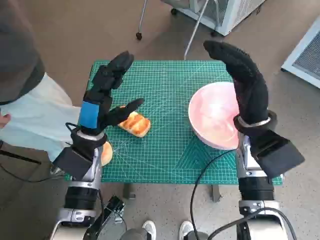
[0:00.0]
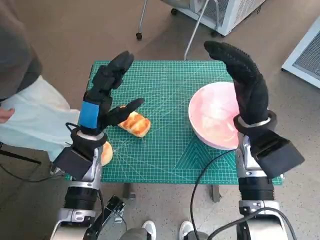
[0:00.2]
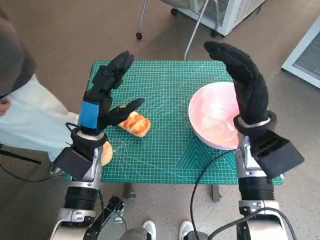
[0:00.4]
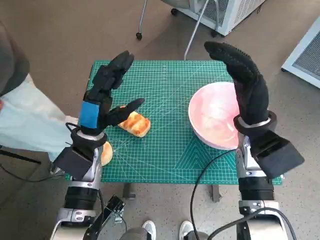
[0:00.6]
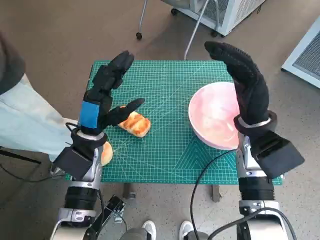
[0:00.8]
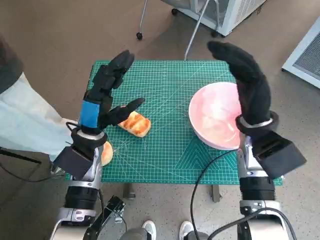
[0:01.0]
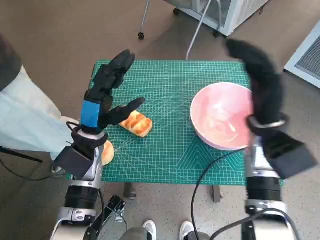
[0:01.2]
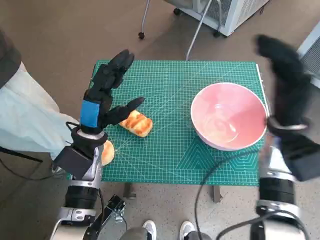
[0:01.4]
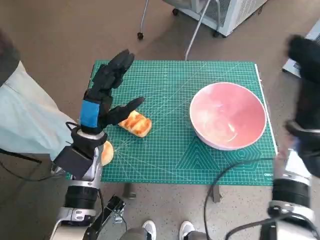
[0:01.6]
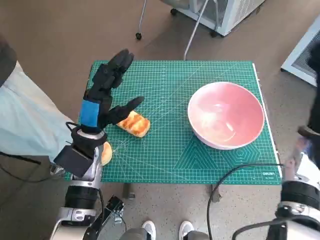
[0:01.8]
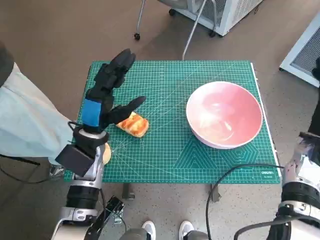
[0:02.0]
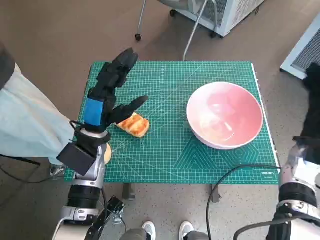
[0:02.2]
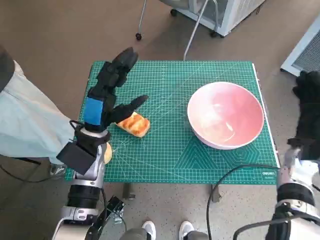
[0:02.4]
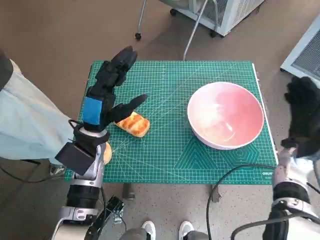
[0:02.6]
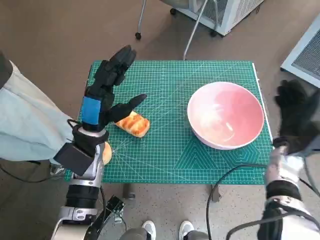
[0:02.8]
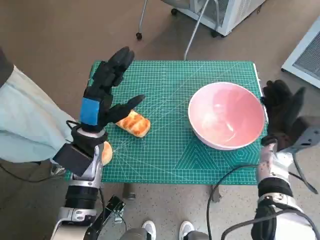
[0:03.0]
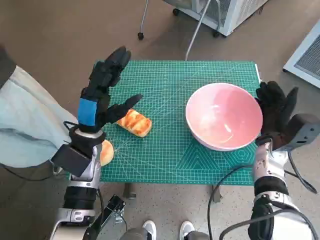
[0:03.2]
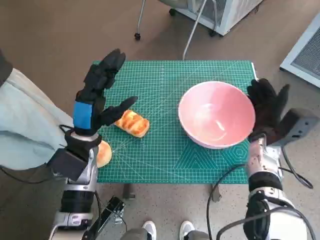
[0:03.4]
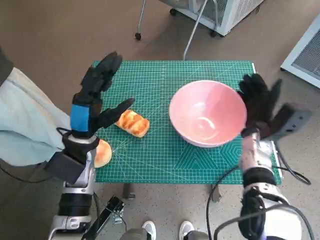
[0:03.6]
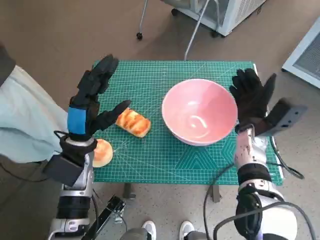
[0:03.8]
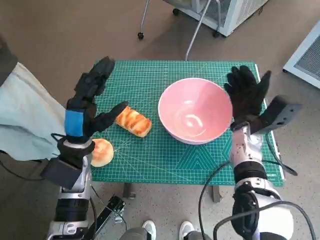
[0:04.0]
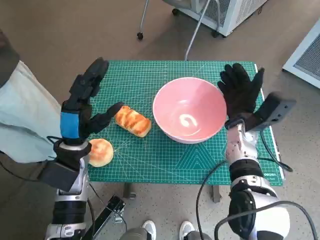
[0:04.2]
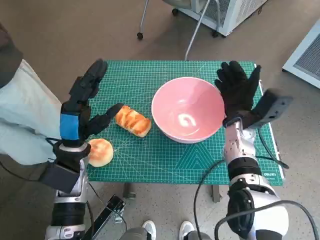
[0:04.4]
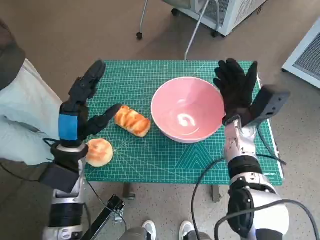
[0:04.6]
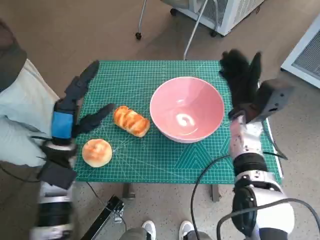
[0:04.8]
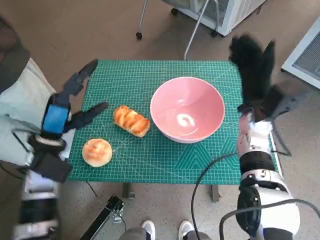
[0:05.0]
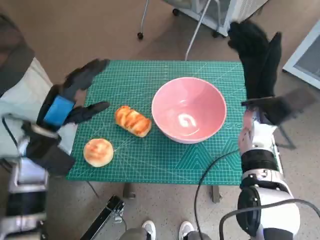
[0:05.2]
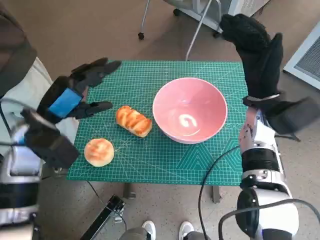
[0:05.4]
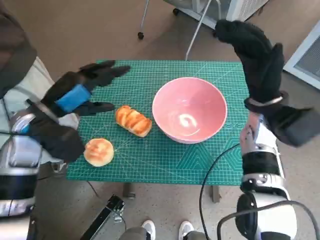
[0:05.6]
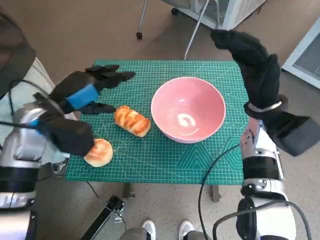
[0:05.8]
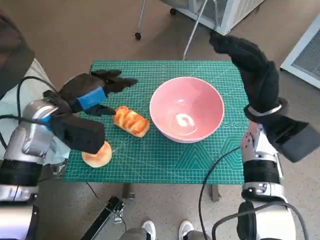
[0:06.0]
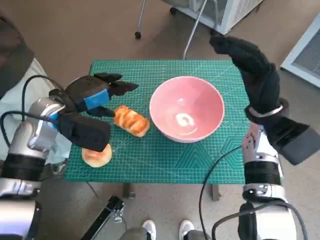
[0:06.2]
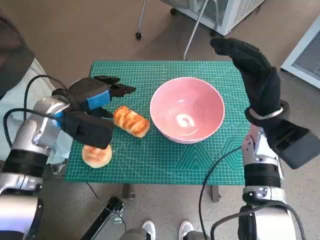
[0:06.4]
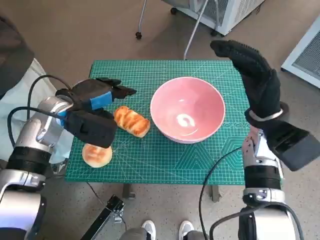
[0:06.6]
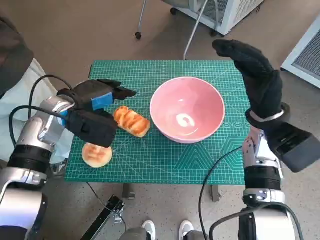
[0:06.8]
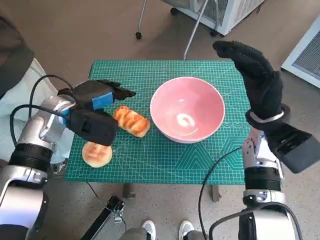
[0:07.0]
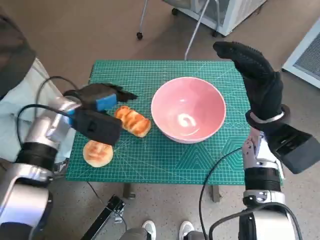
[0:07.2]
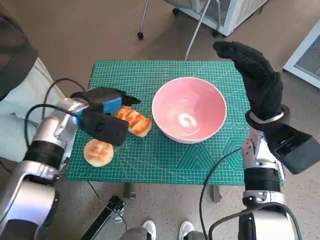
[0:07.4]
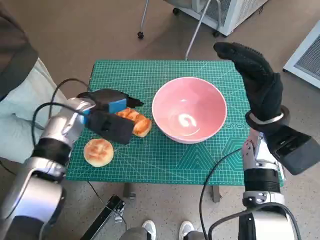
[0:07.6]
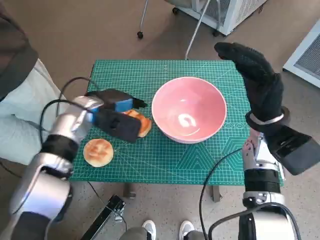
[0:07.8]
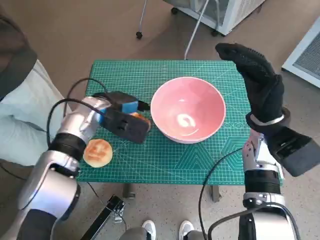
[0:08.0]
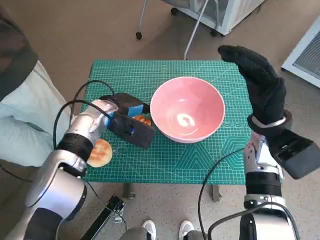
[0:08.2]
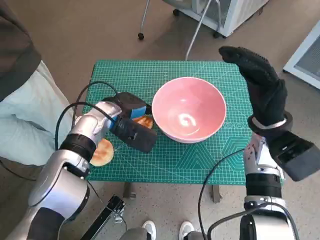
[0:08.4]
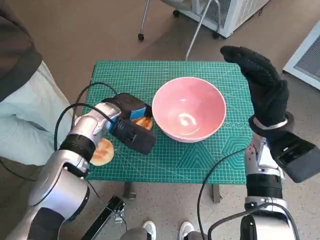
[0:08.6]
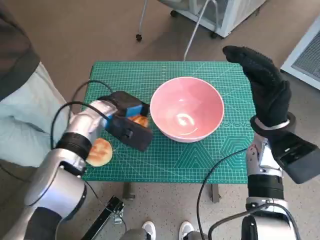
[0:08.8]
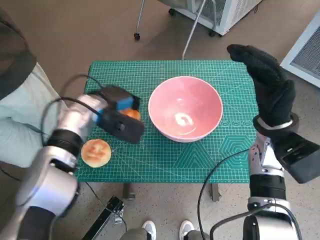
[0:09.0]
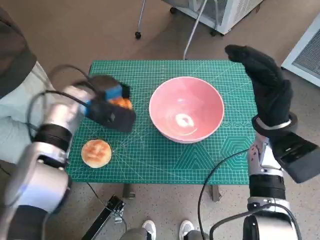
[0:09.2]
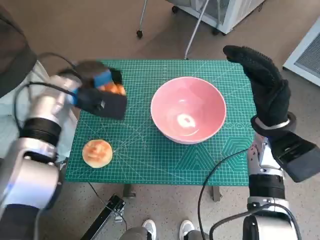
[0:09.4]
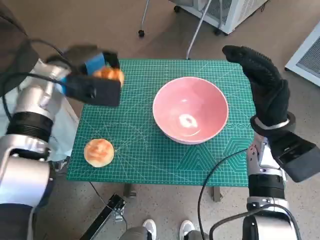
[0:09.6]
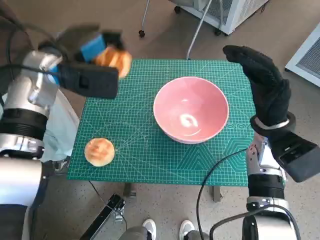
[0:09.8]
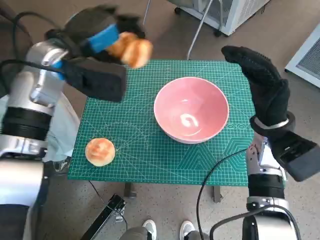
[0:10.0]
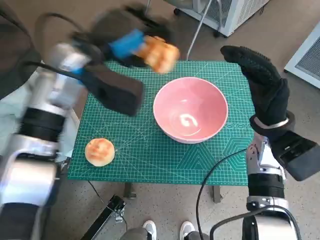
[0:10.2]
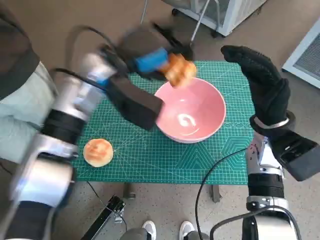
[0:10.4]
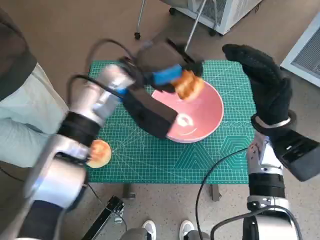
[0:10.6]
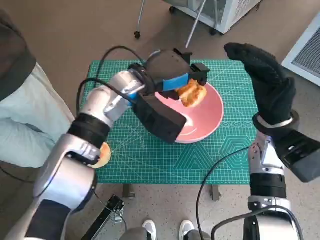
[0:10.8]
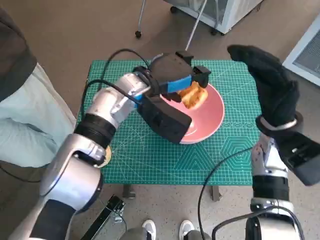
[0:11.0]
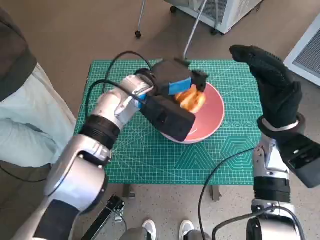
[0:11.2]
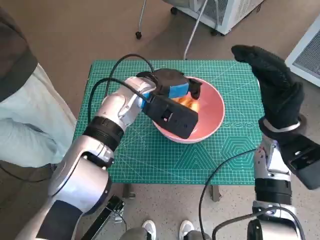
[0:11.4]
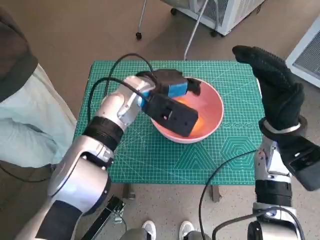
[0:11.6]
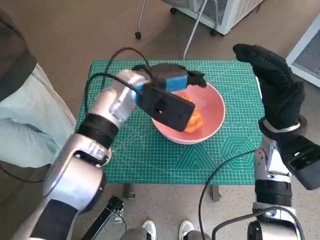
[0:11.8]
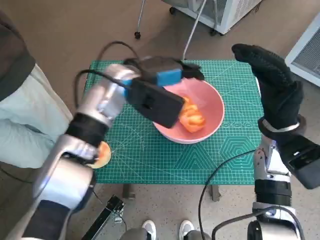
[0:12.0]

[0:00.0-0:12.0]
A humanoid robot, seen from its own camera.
Task of the whole recording: Push the bowl to the center of the table and put the bread into the bowl.
Step, 0:00.0 to 0:04.6: Move the pink bowl to the center of table with right hand.
Step, 0:04.8 to 0:08.4: Grasp the long bread with left hand.
Step, 0:08.6 to 0:11.8: Place the long bread in pink bowl with left hand.
0:01.6 to 0:03.0: The right hand is displaced downward by roughly 10 cm.
0:03.0 to 0:04.4: The right hand heads to the left, covering about 10 cm.
0:04.4 to 0:06.0: The left hand goes about 10 cm upward and forward. Meanwhile the right hand is displaced upward by some 10 cm.
0:06.0 to 0:07.6: The left hand moves roughly 5 cm.
0:09.0 to 0:10.4: The left hand heads upward, covering roughly 10 cm.

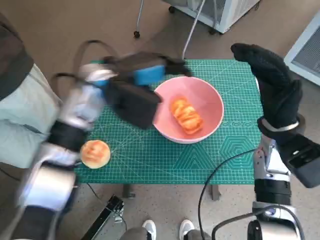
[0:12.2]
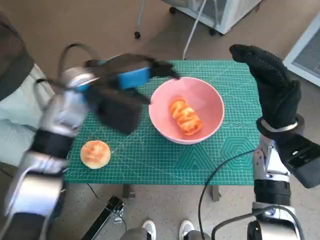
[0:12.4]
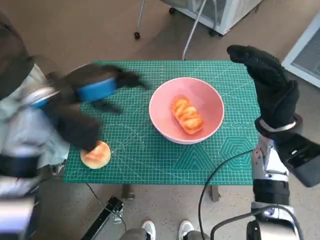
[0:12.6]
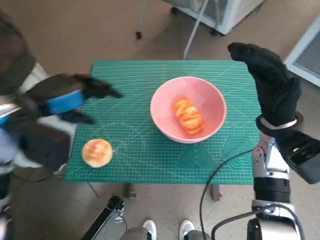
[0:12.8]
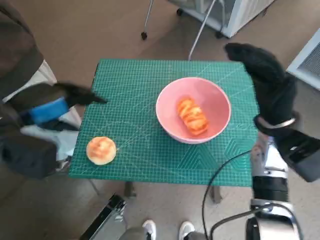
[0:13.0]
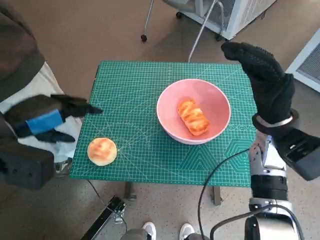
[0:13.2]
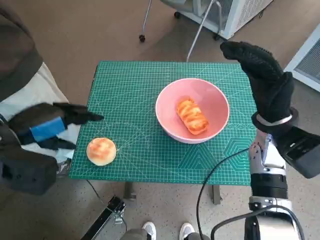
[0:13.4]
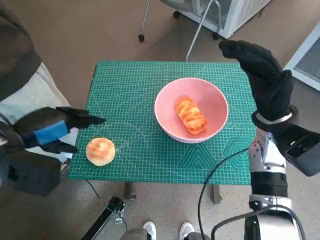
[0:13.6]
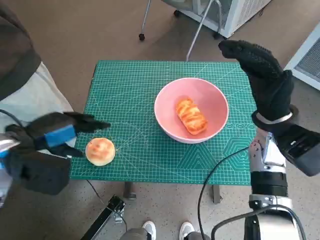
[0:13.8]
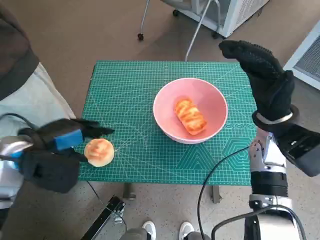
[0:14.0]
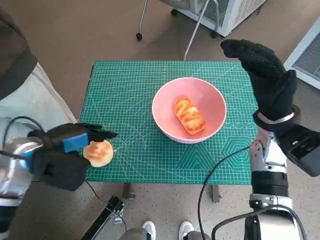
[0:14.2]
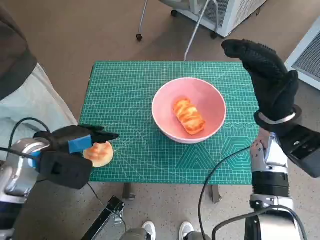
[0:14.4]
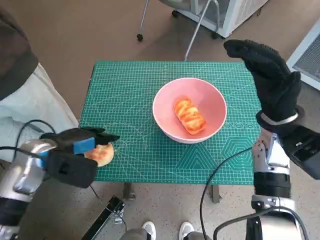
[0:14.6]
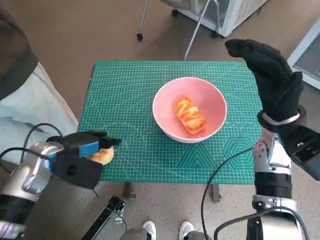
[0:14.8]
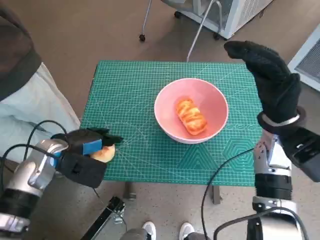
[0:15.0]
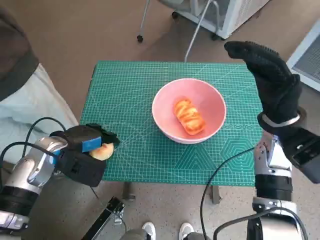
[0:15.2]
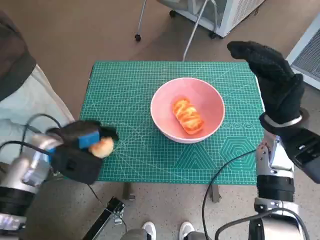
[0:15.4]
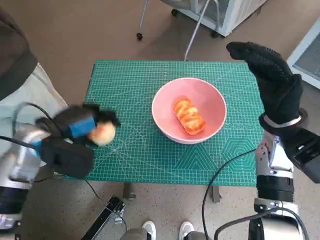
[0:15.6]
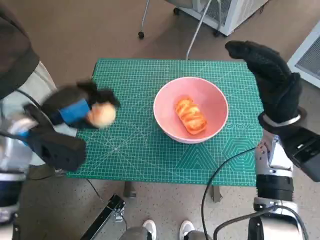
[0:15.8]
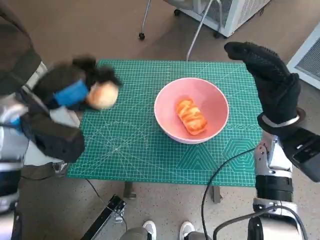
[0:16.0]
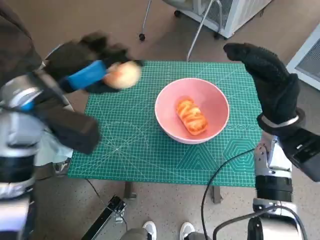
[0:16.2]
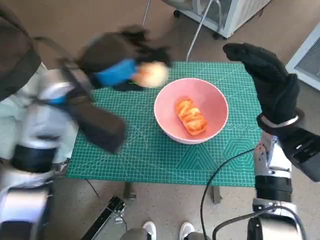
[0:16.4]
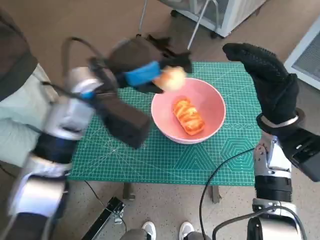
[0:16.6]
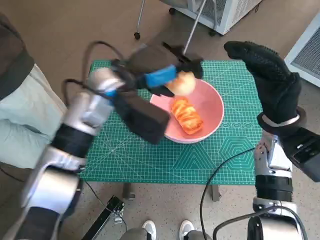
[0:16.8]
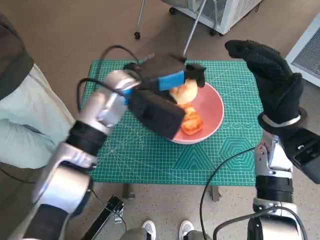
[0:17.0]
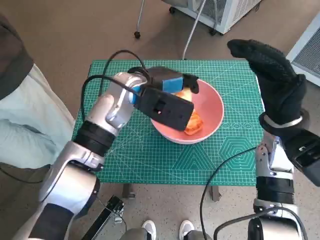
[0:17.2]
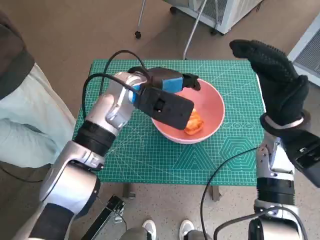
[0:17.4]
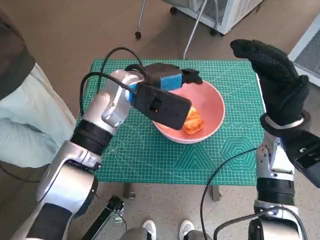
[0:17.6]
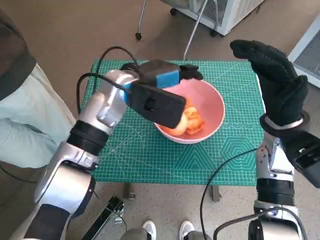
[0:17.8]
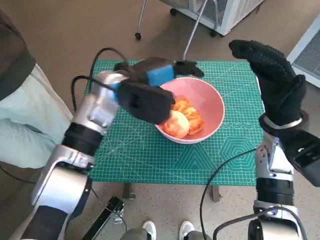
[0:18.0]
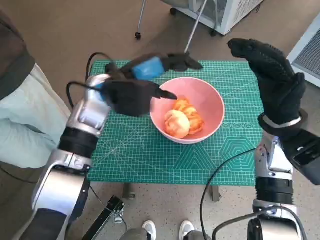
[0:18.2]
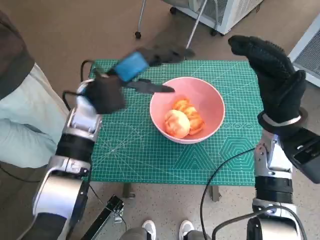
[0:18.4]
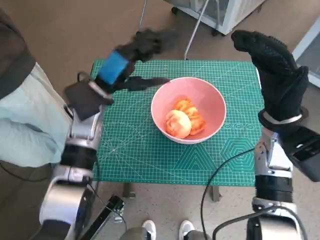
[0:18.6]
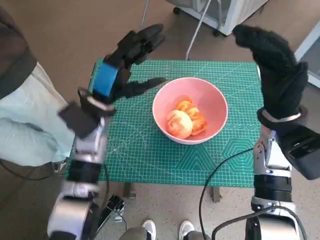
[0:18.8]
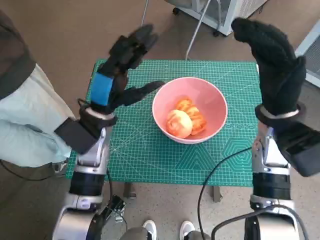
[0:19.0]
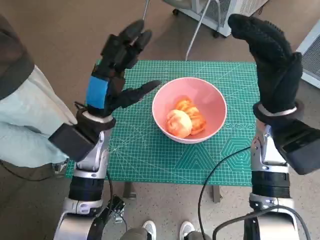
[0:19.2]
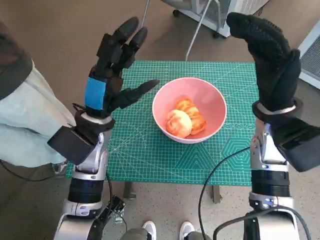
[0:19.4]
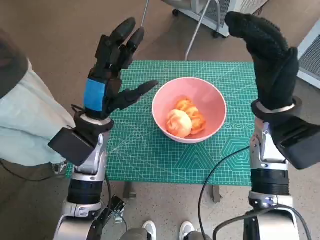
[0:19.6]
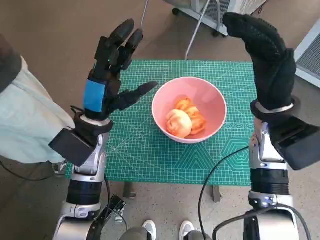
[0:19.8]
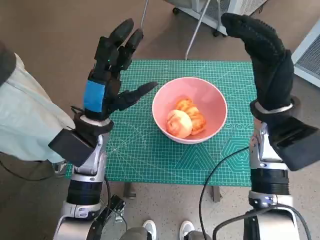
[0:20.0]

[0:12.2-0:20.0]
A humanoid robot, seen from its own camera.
Task of the whole recording: Push the bowl to the center of the table and put the bread into the bowl.
Step, 0:12.2 to 0:15.2: Grasp the round bread with left hand.
Step, 0:15.4 to 0:18.0: Place the round bread in pink bowl with left hand.
0:12.2 to 0:13.8: The left hand heads to the left and backward, covering some 20 cm.
0:13.8 to 0:15.4: The left hand goes about 5 cm downward.
0:15.4 to 0:16.8: The left hand is displaced to the right, upward and forward by approximately 20 cm.
0:18.4 to 0:20.0: The left hand is displaced backward by approximately 5 cm.

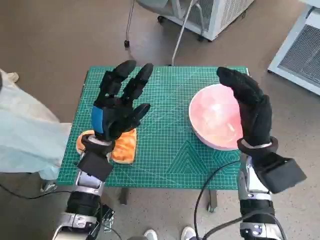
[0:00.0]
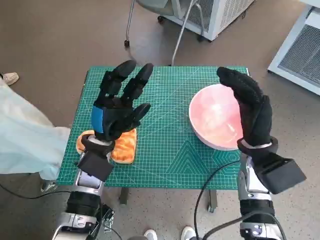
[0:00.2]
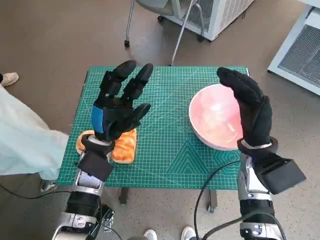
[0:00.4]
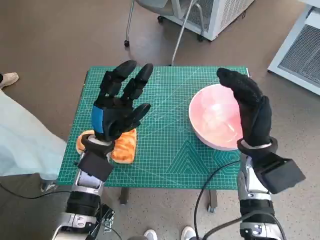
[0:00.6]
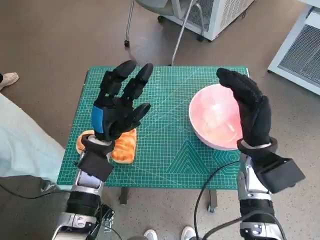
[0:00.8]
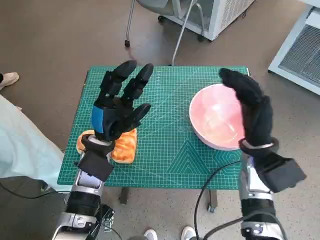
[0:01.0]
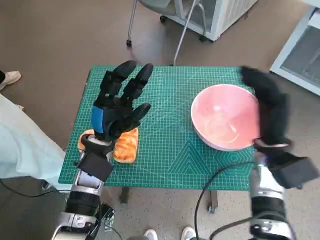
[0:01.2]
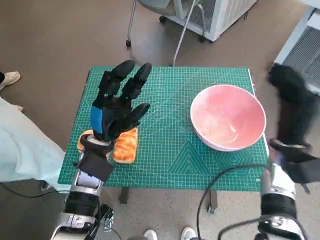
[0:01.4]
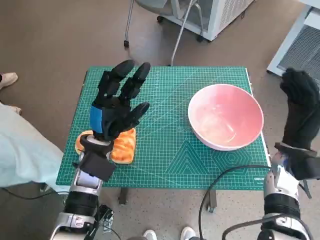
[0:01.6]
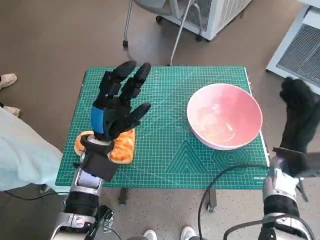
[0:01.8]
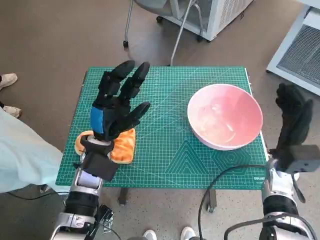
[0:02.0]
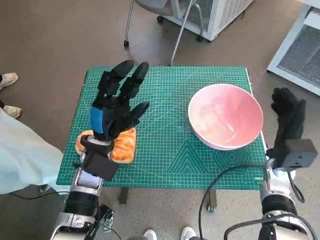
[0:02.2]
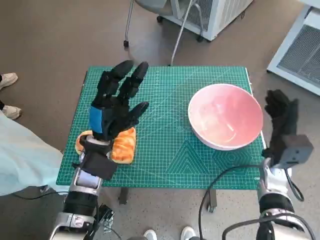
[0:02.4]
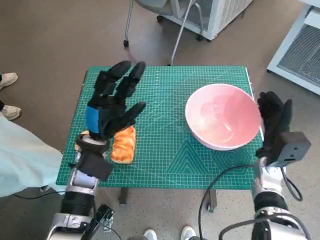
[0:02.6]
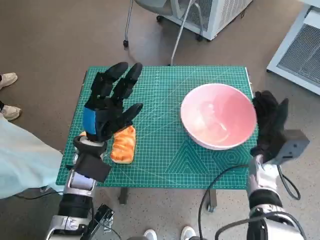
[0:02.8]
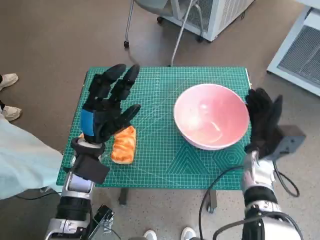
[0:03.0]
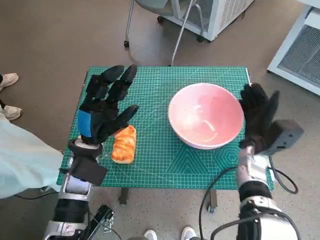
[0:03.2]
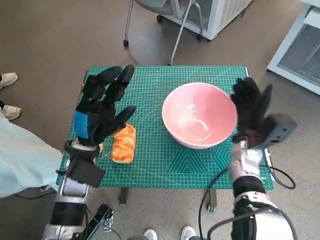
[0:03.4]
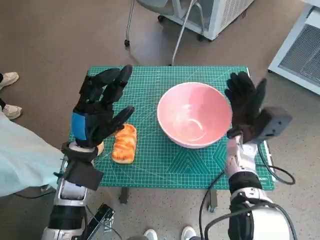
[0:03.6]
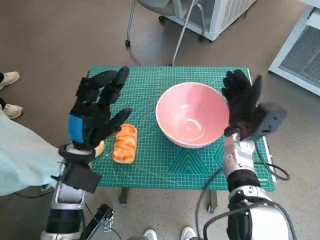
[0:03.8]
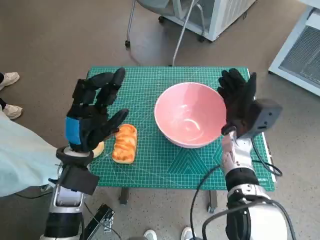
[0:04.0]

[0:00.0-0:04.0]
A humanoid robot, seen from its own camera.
Task of the whole recording: Push the bowl to the center of the table and put the bread into the bowl.
0:01.4 to 0:02.6: The right hand goes about 5 cm downward.
0:02.6 to 0:04.0: The right hand shifts roughly 10 cm to the left.
